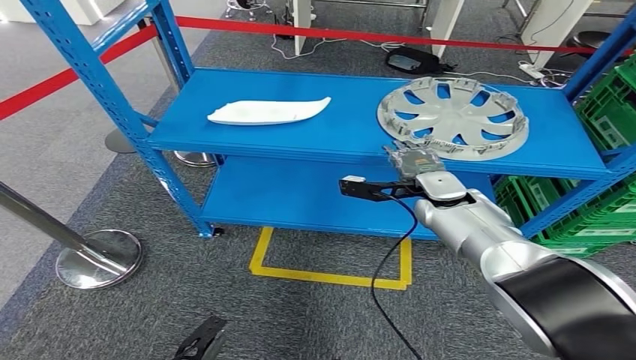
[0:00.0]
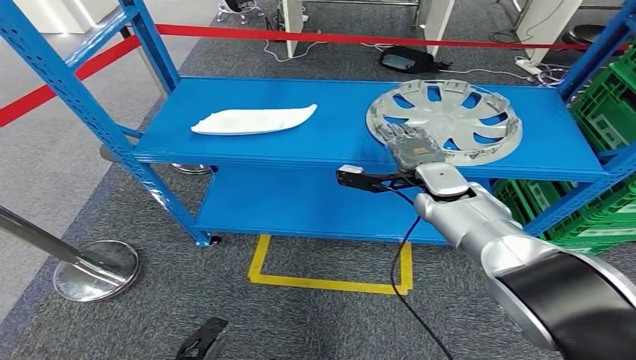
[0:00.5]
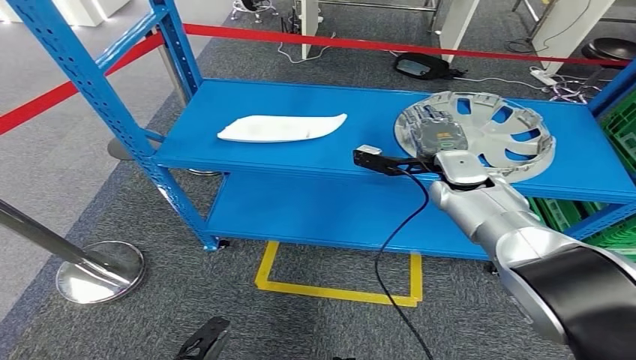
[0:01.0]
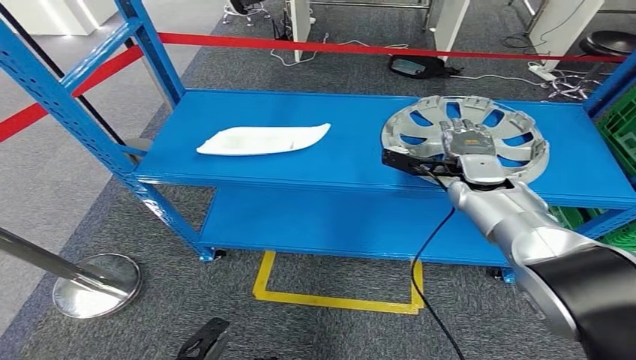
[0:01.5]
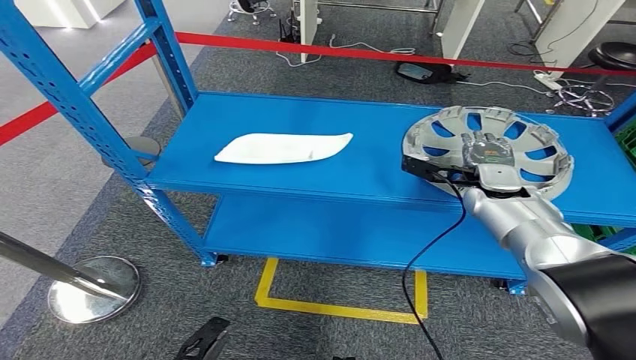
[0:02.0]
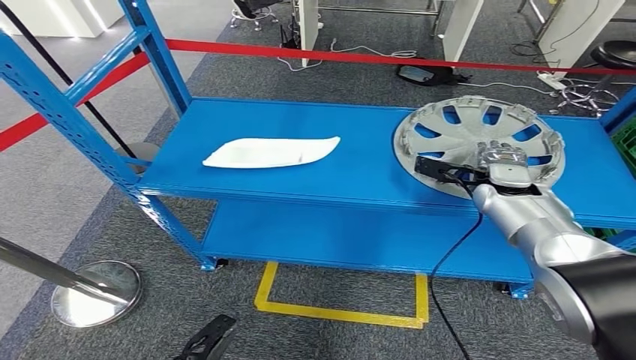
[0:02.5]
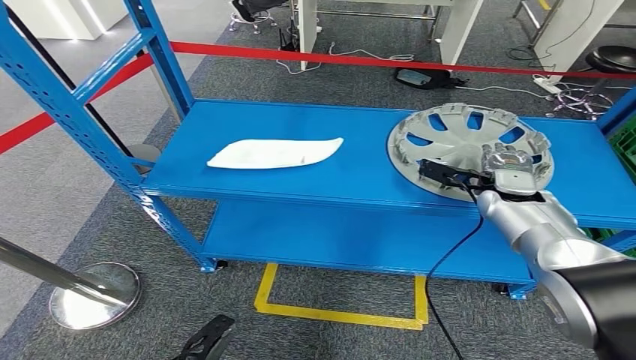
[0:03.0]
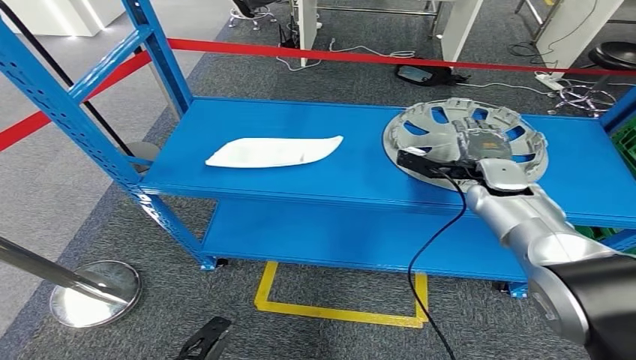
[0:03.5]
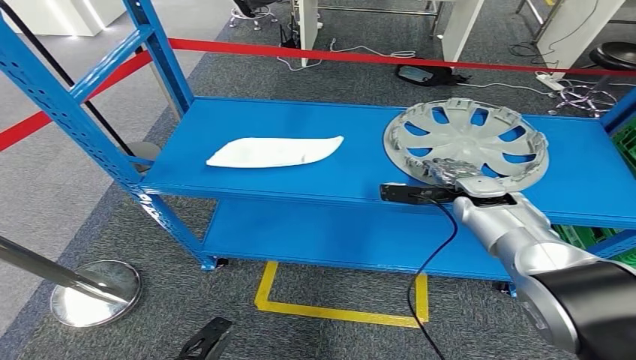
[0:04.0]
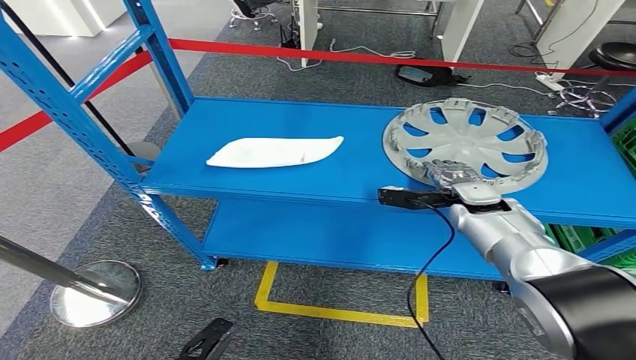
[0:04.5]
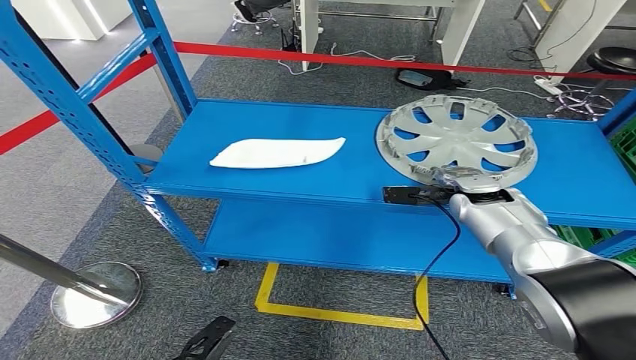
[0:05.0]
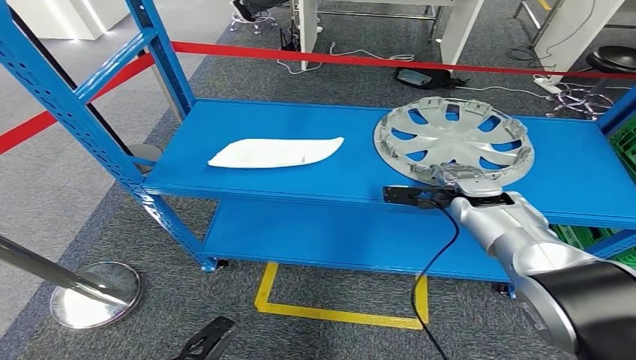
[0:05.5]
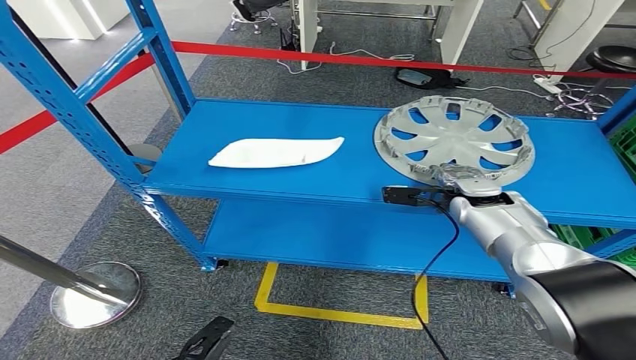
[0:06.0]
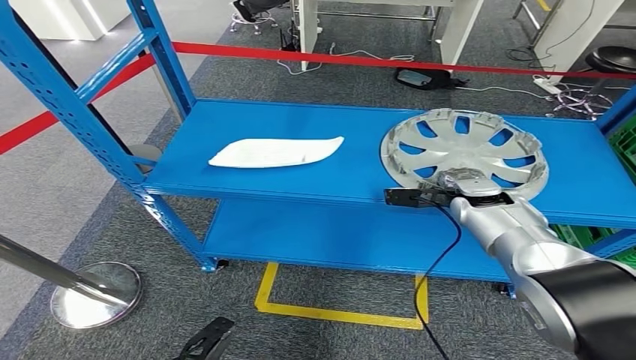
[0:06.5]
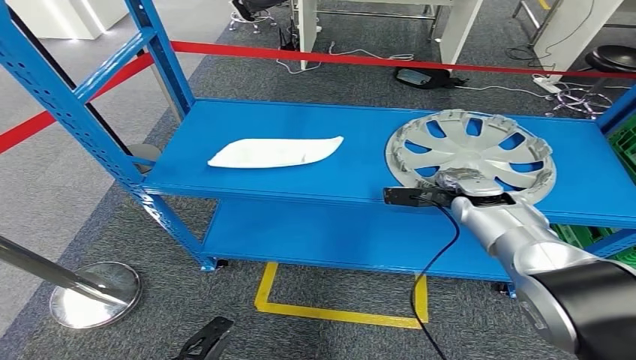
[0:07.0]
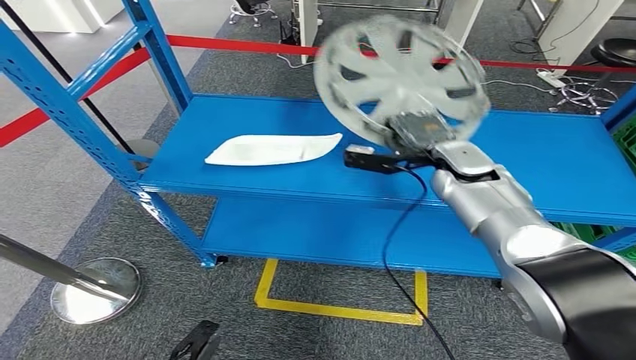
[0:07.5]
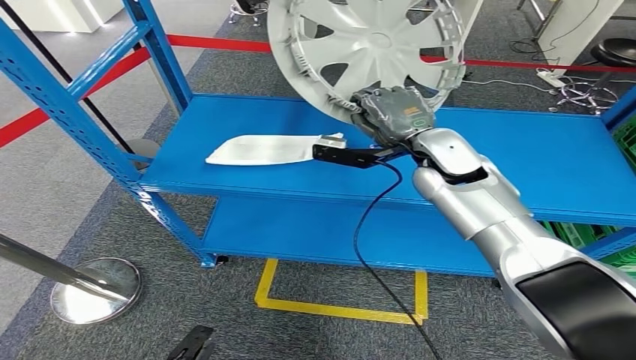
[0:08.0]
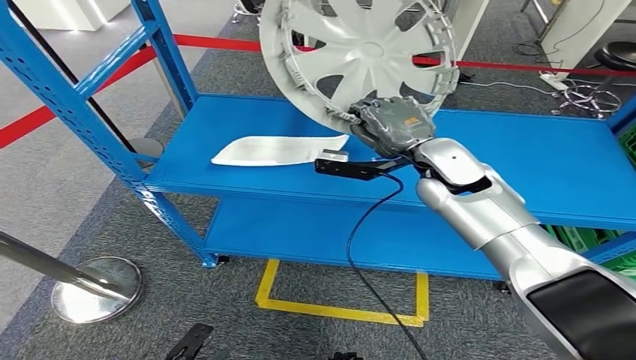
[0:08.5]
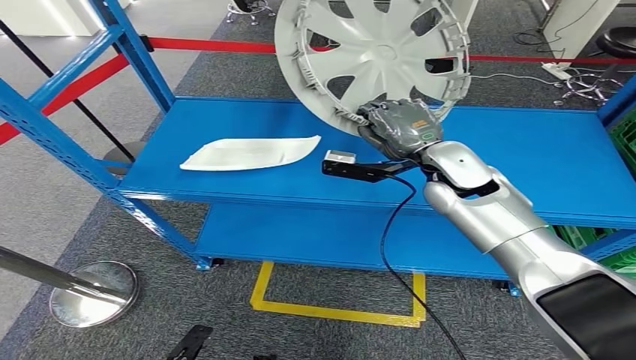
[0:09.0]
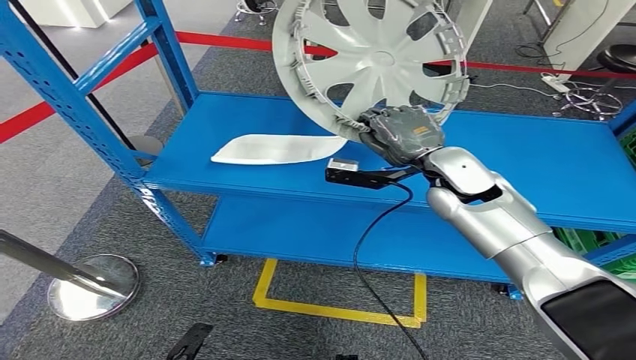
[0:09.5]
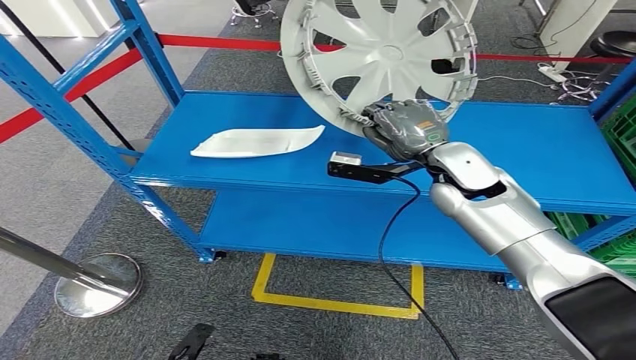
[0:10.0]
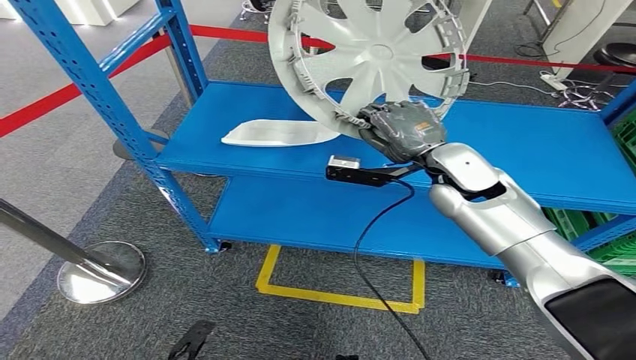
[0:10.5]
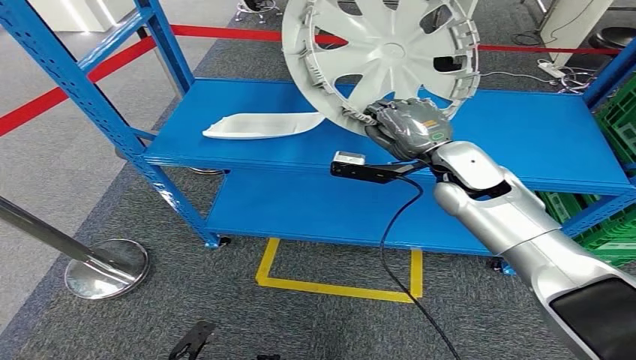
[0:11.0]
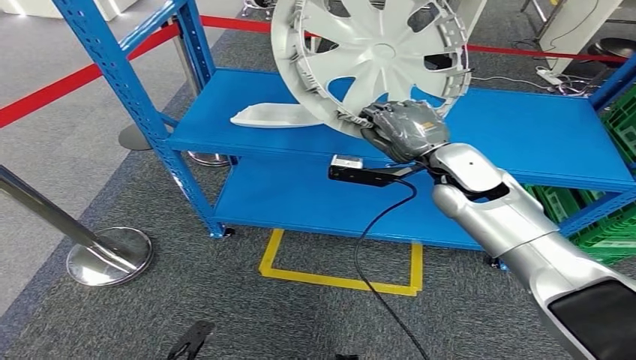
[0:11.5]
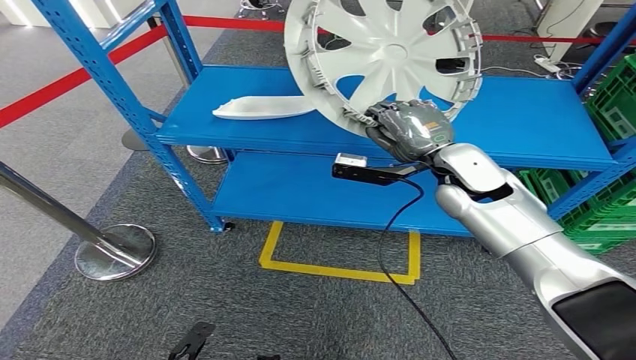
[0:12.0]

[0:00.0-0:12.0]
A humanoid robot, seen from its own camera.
0:04.0 to 0:06.0: The hands make only small movements.

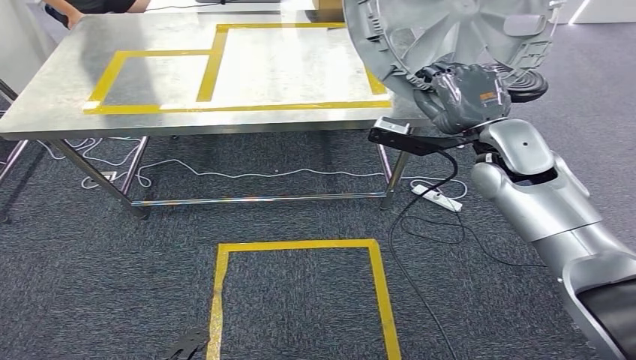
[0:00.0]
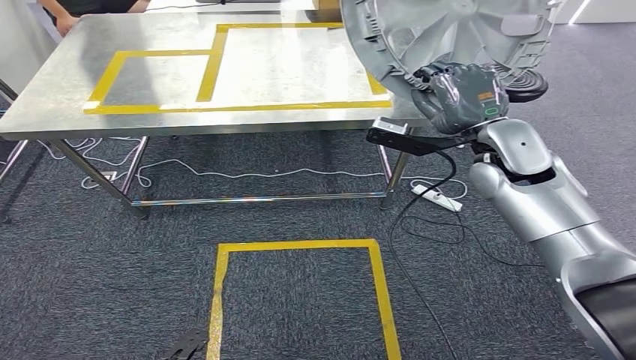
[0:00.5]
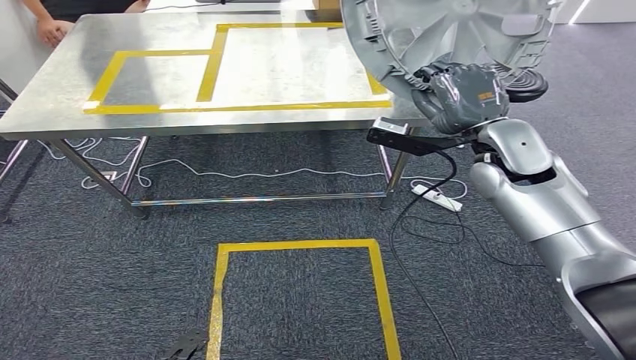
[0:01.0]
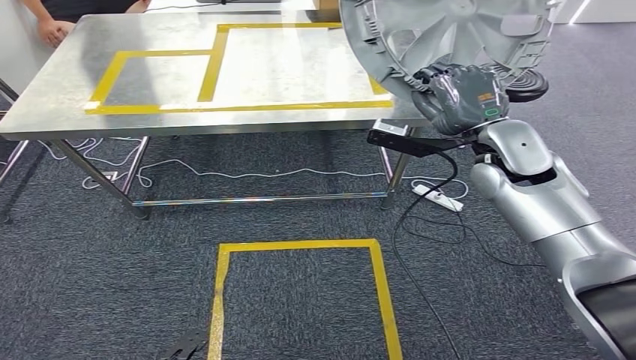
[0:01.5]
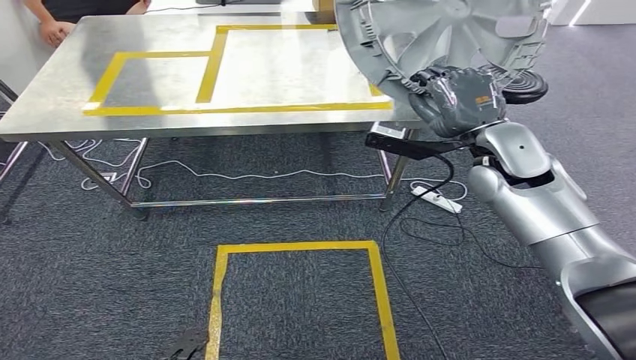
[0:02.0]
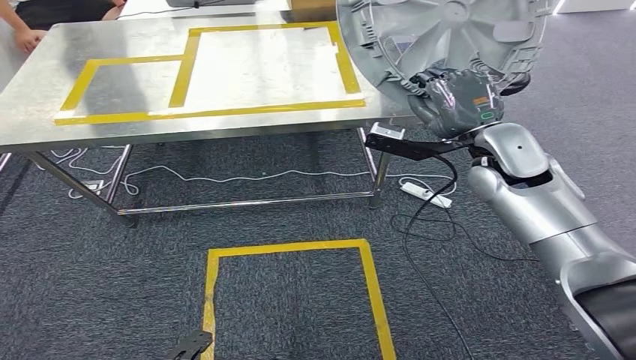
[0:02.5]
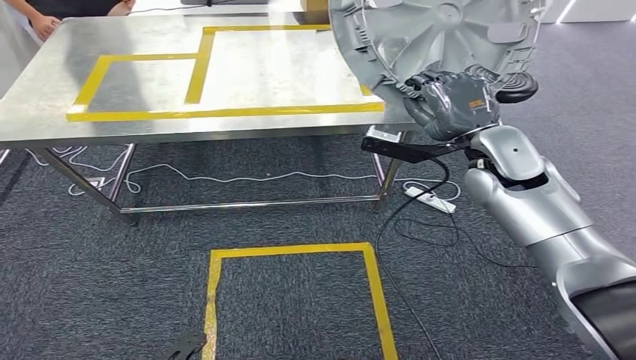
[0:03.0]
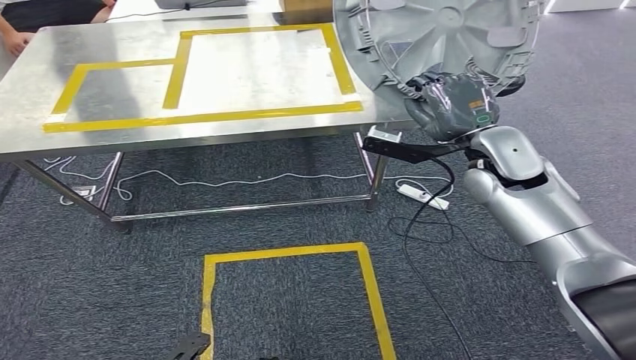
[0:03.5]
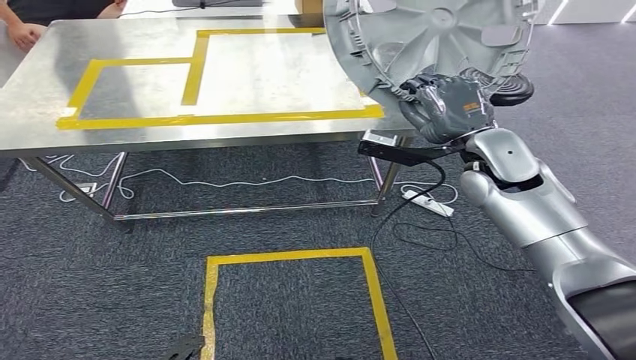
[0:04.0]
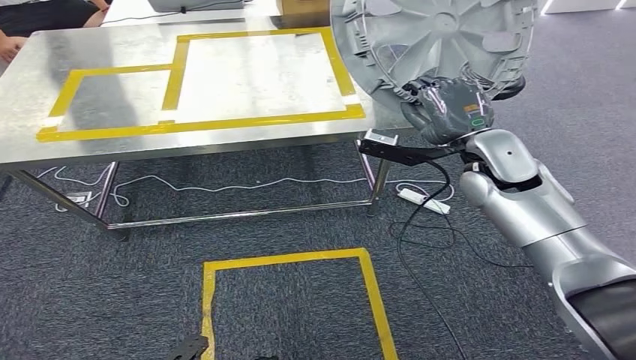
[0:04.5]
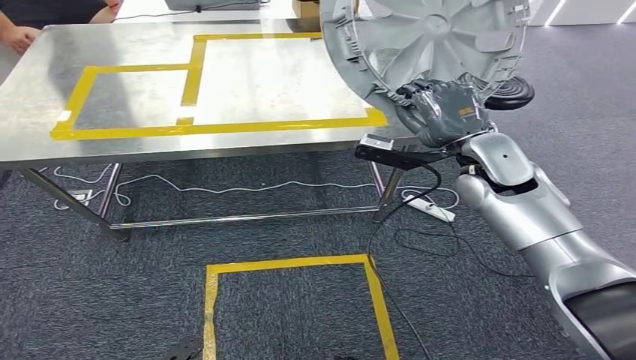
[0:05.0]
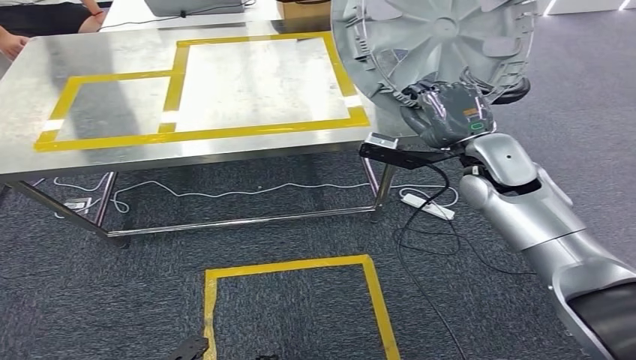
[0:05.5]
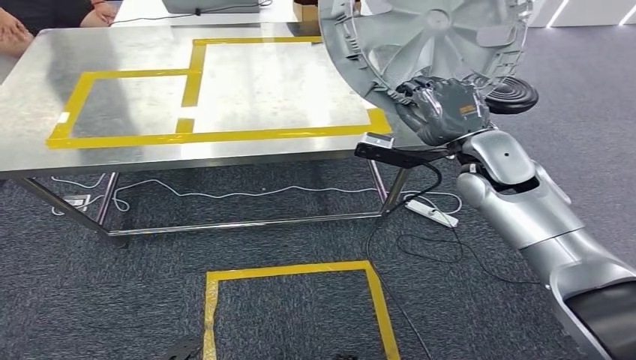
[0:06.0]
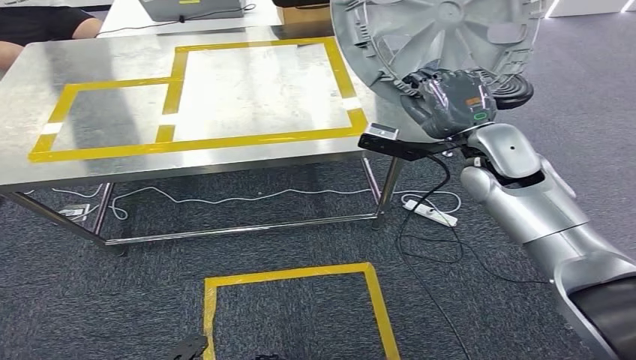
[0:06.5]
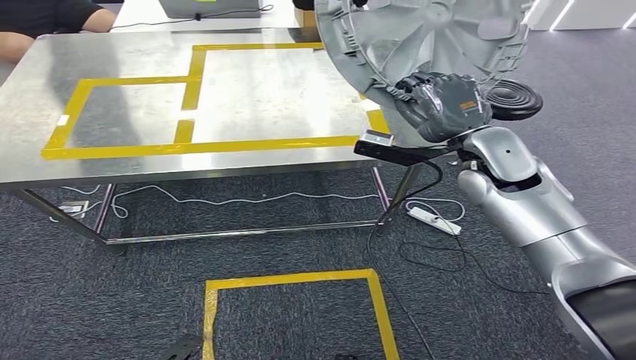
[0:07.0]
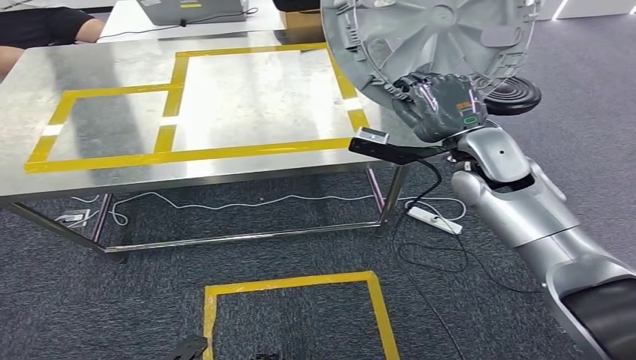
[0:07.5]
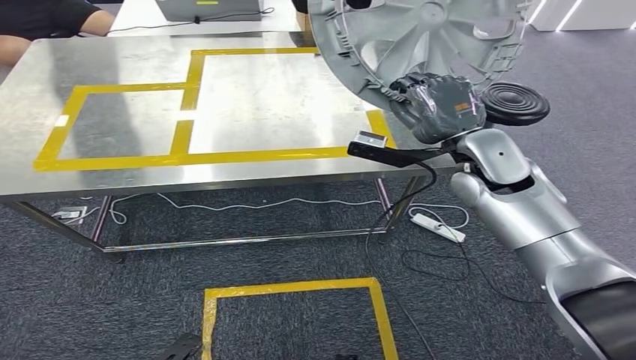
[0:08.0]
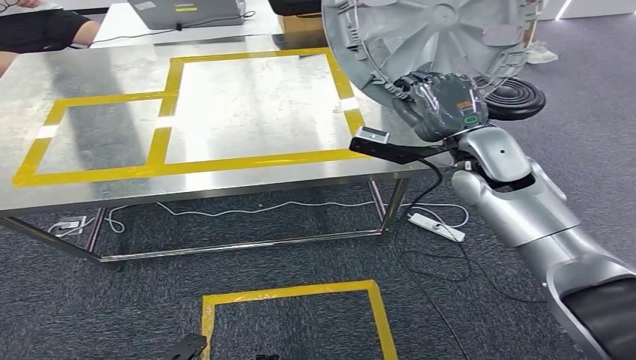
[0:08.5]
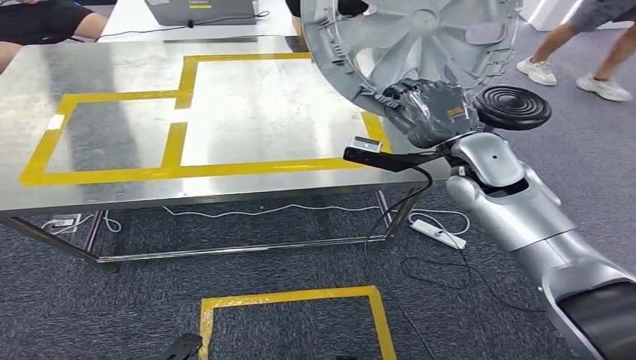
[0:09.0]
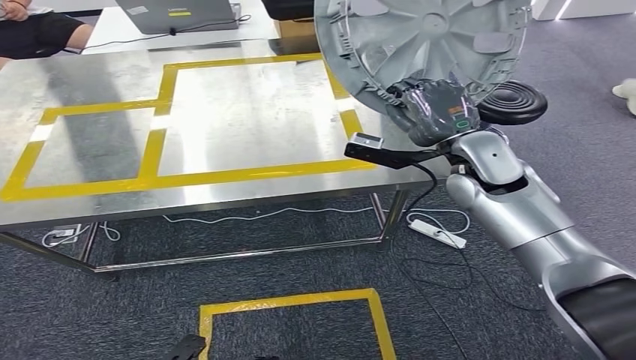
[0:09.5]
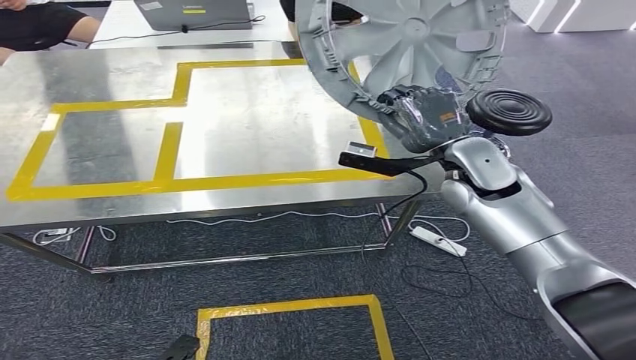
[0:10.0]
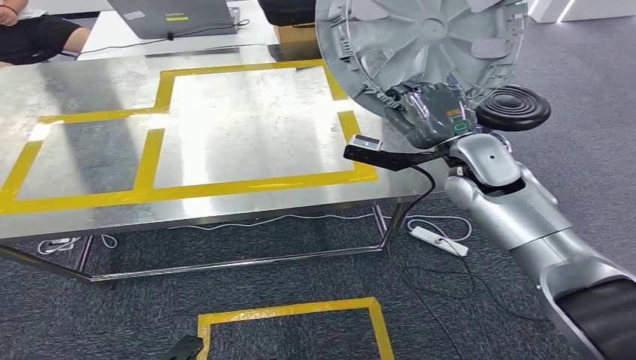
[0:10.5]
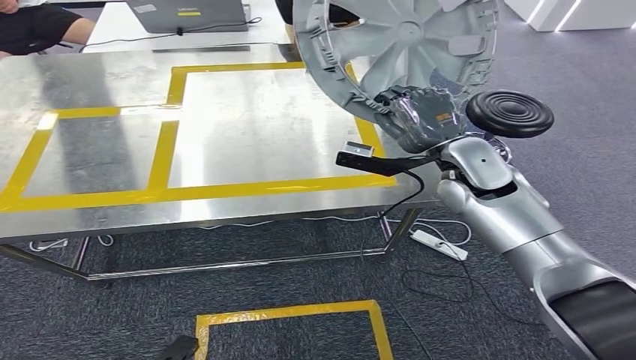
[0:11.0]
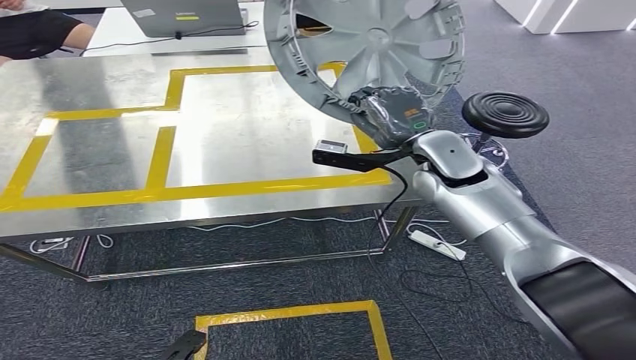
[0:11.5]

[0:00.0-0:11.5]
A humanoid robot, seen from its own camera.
0:00.0 to 0:02.0: Both hands stay about where they are.
